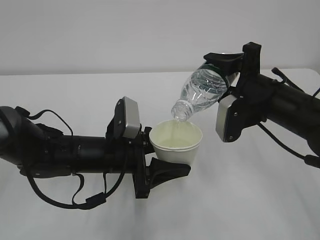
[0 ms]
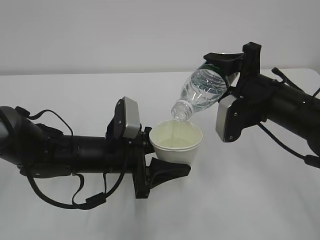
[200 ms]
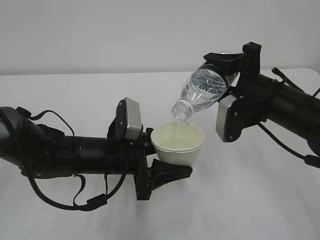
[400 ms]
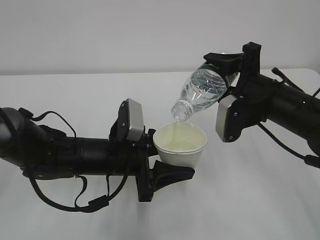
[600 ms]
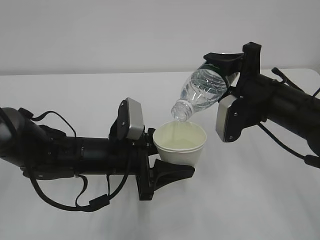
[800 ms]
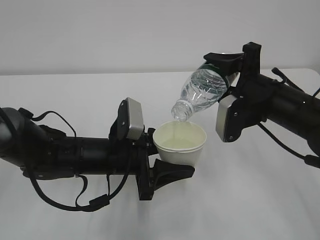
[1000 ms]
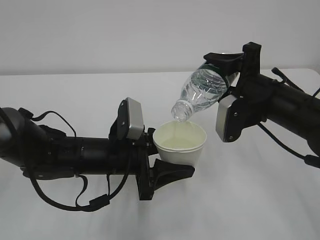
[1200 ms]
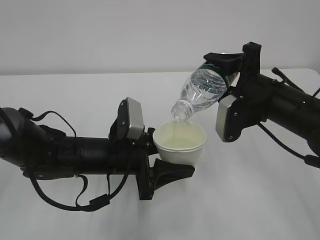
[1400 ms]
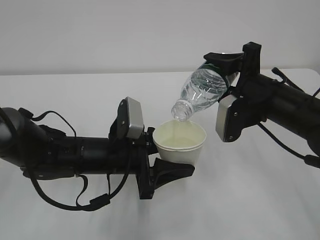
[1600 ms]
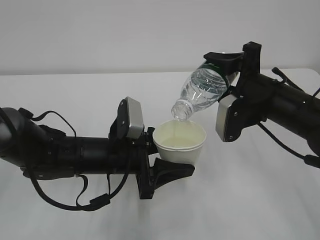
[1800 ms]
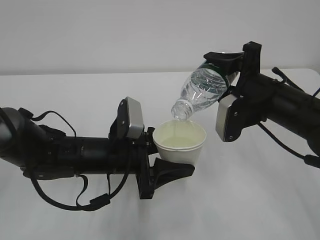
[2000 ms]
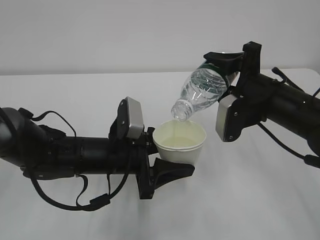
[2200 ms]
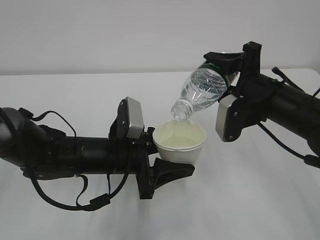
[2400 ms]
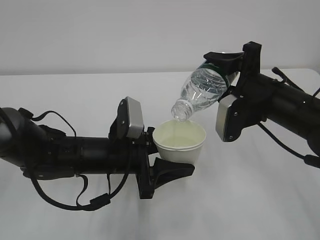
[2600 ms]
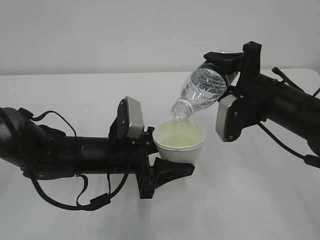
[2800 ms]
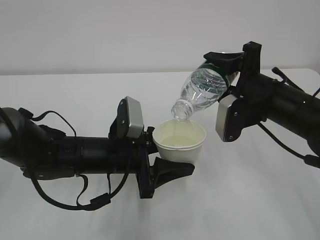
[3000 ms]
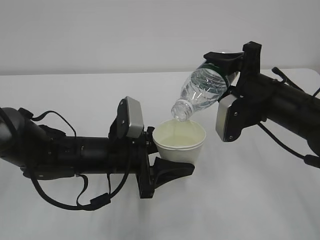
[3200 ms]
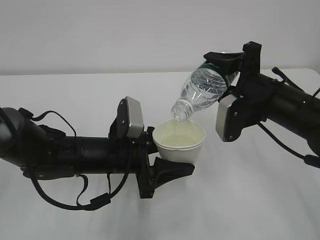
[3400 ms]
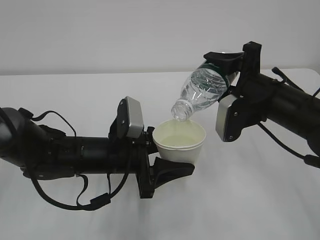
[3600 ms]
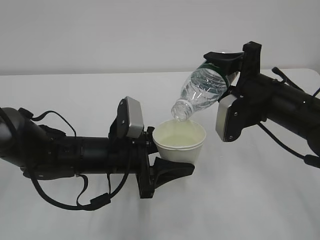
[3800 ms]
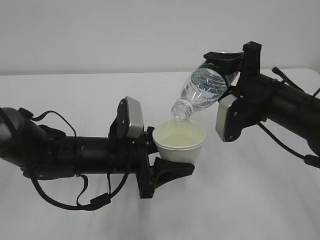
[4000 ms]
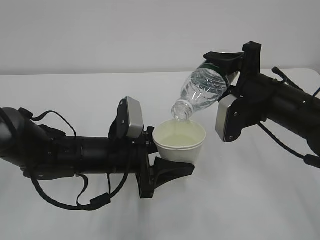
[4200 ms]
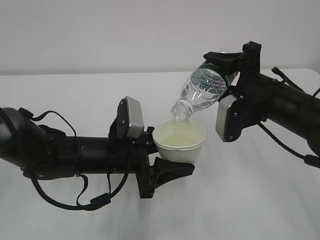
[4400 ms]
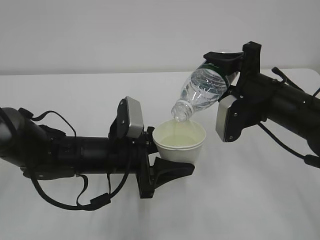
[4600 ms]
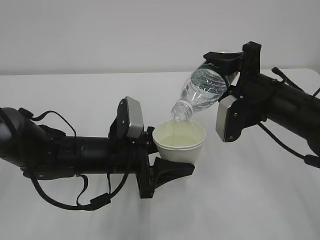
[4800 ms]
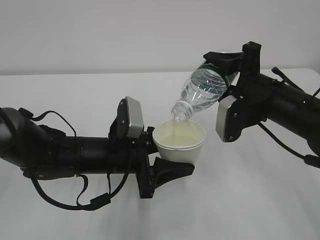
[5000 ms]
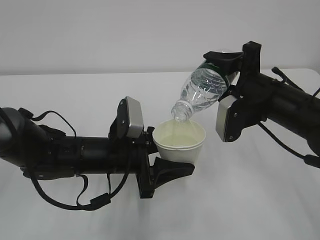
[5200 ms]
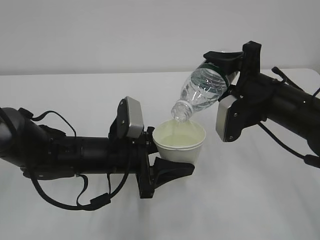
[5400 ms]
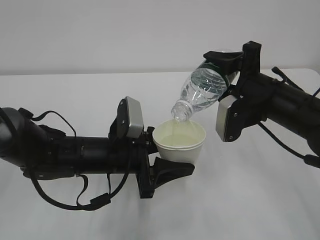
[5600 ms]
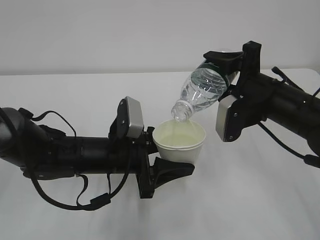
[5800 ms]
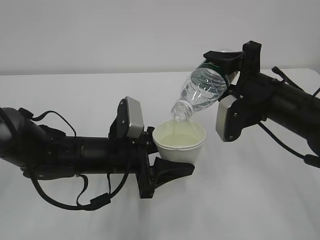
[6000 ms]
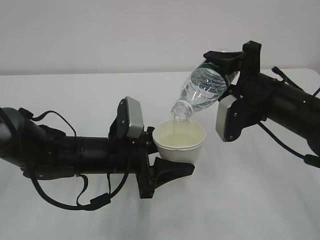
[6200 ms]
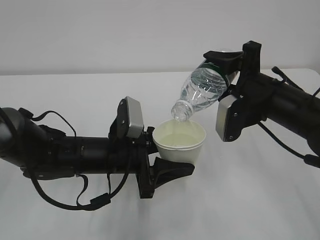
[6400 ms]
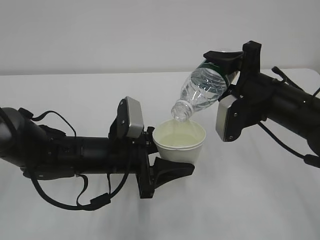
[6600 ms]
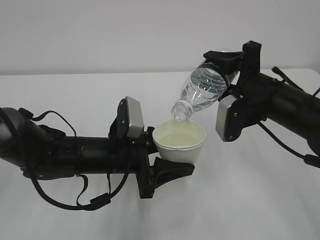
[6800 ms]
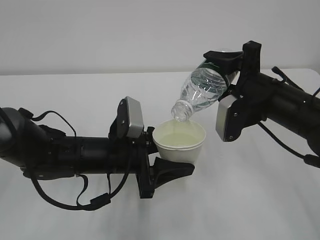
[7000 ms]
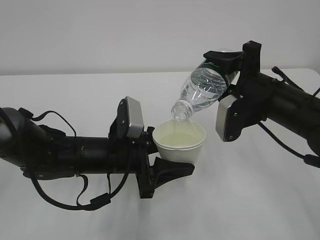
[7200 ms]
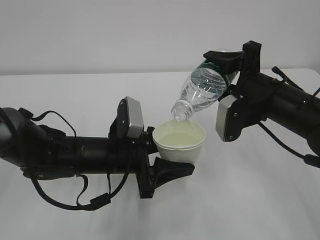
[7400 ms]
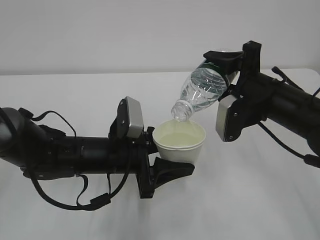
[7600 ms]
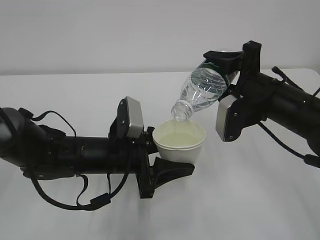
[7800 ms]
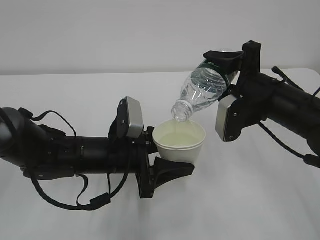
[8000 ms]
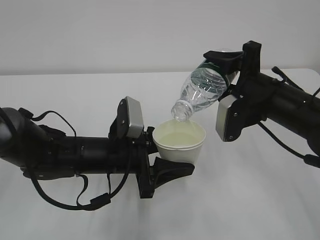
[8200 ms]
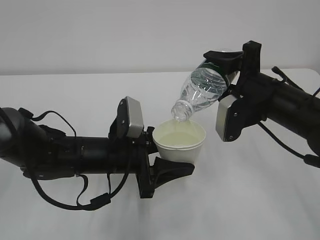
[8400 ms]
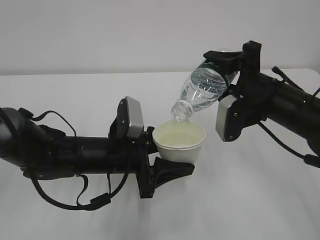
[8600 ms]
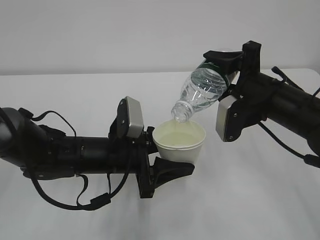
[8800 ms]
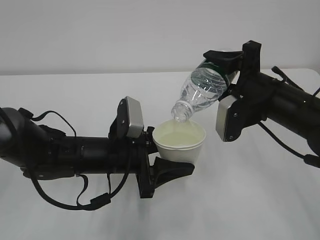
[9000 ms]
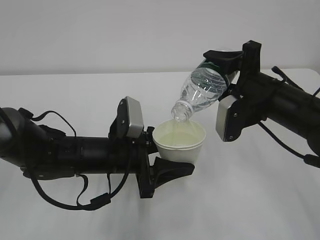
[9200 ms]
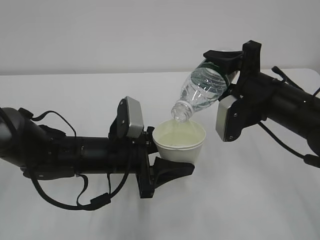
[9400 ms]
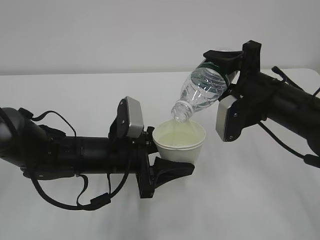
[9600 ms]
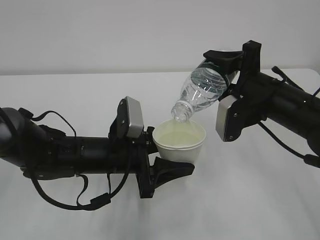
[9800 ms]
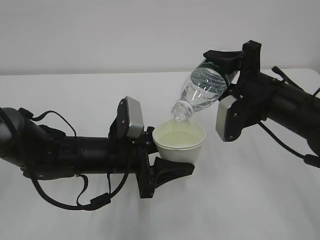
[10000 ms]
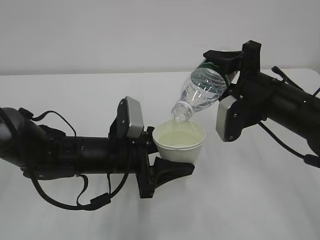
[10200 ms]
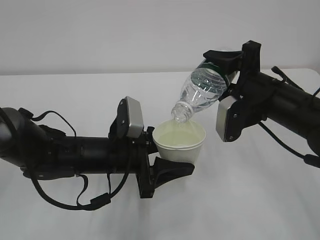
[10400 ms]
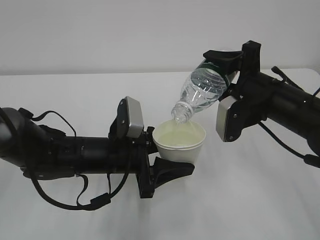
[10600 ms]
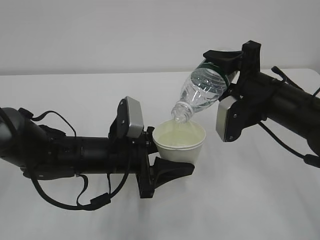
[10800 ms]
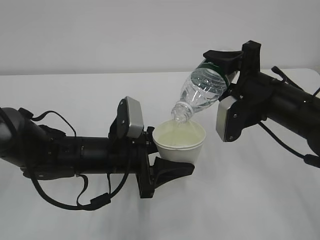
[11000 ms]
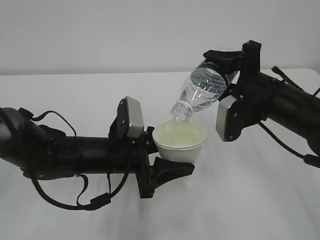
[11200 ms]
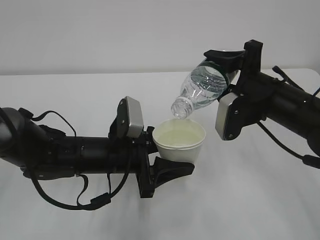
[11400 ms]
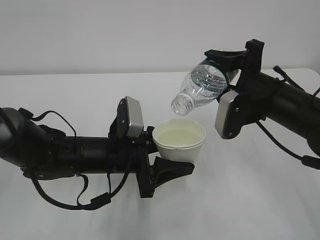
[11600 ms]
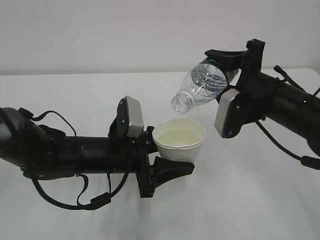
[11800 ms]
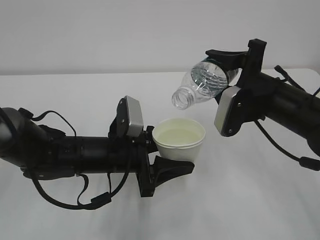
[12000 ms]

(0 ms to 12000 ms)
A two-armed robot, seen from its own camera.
0 ms - 10400 ms: Both grippers stay about where they are.
10400 ms - 12000 ms: The grippers move only a little.

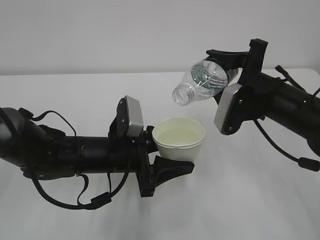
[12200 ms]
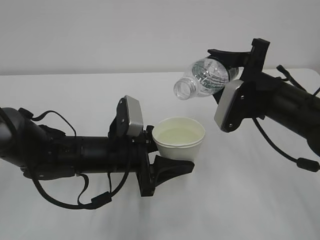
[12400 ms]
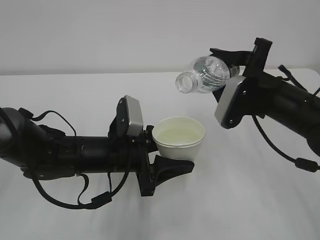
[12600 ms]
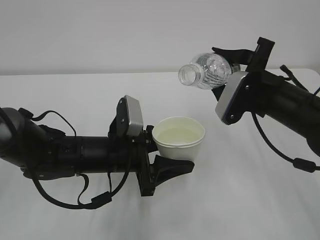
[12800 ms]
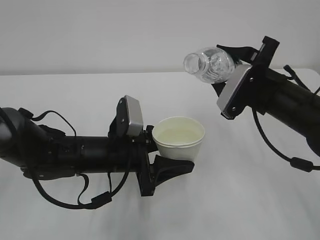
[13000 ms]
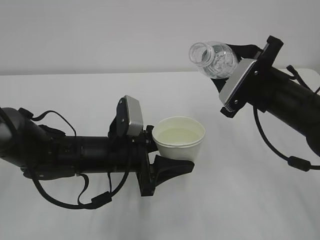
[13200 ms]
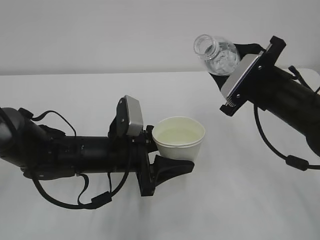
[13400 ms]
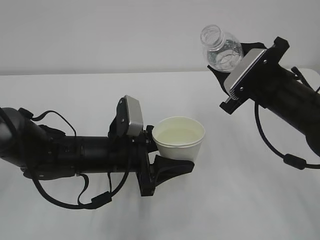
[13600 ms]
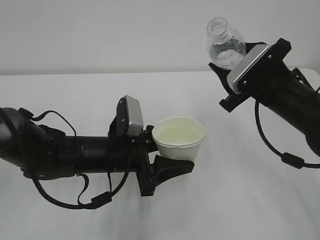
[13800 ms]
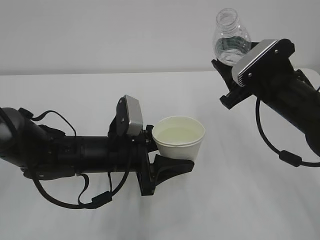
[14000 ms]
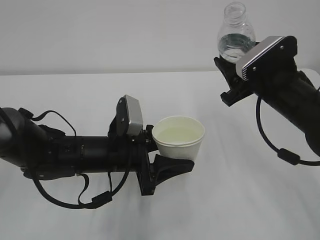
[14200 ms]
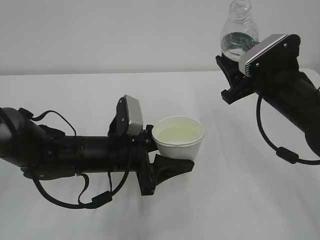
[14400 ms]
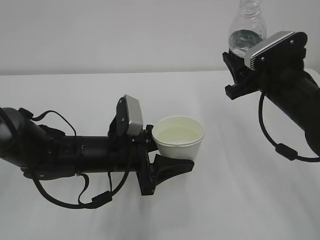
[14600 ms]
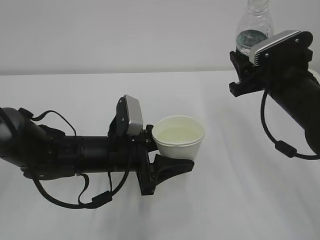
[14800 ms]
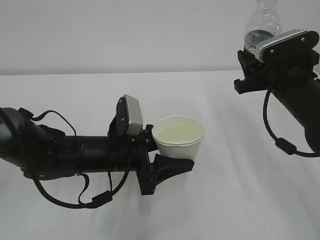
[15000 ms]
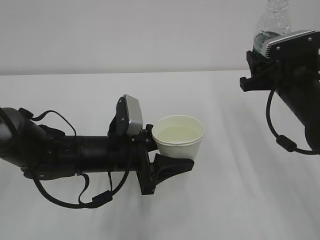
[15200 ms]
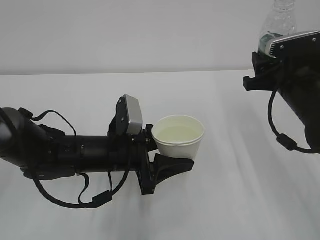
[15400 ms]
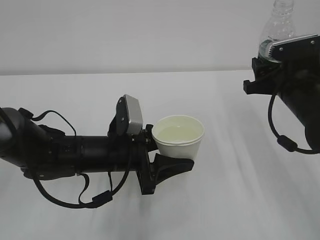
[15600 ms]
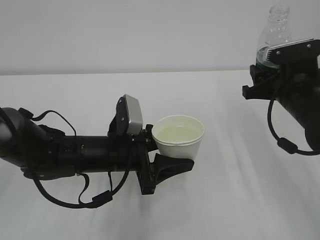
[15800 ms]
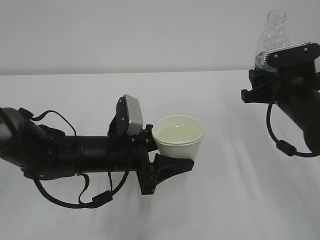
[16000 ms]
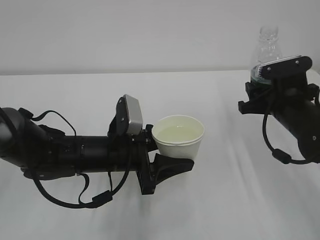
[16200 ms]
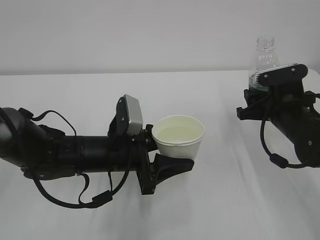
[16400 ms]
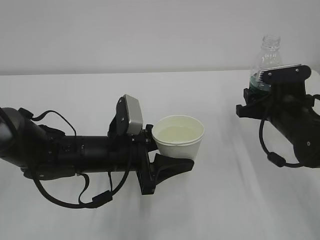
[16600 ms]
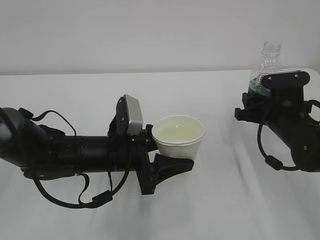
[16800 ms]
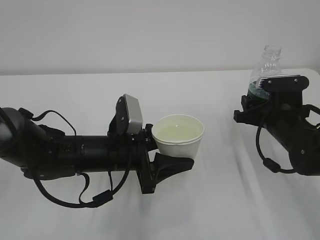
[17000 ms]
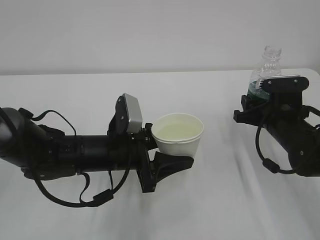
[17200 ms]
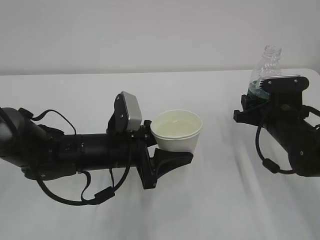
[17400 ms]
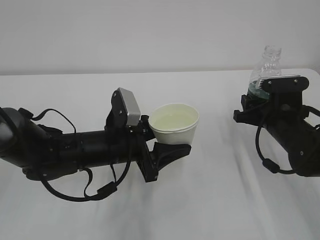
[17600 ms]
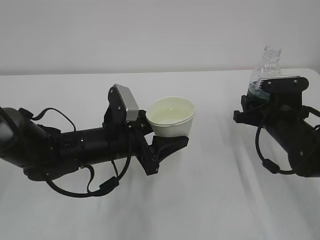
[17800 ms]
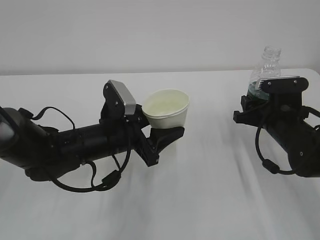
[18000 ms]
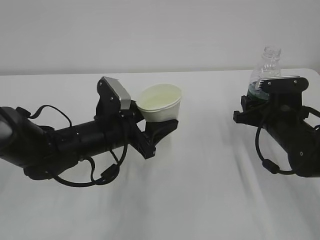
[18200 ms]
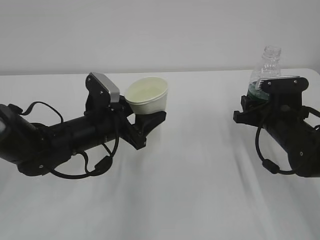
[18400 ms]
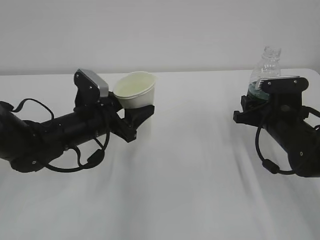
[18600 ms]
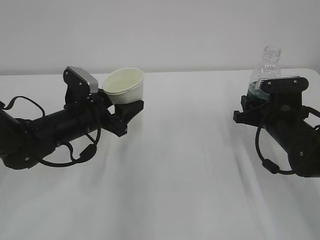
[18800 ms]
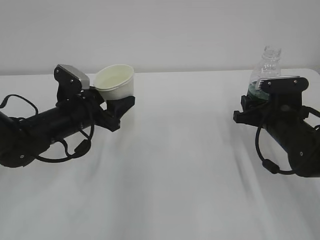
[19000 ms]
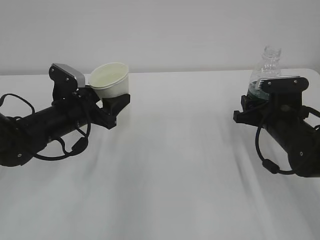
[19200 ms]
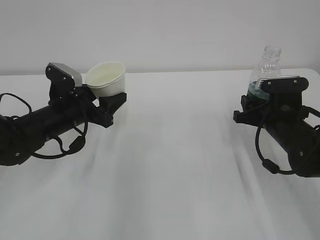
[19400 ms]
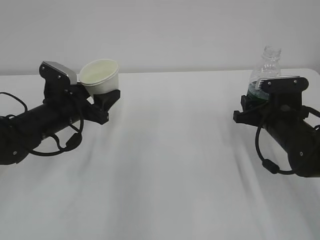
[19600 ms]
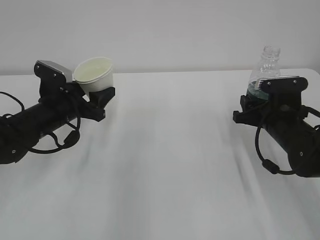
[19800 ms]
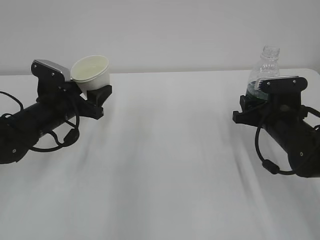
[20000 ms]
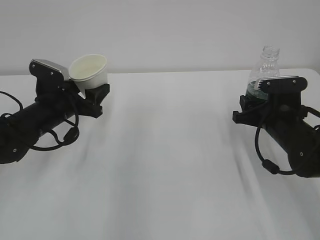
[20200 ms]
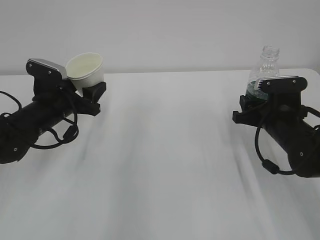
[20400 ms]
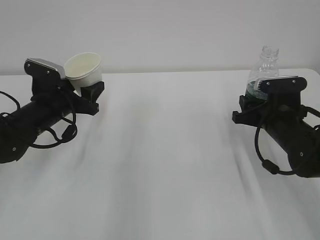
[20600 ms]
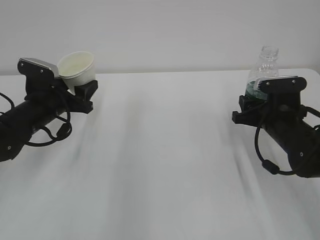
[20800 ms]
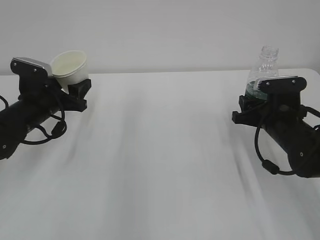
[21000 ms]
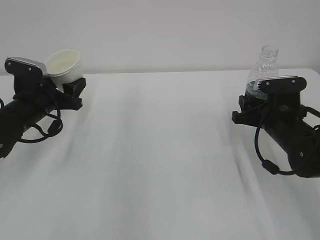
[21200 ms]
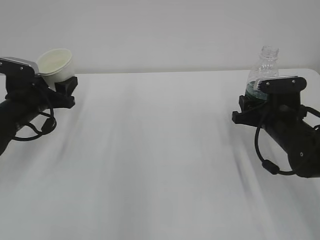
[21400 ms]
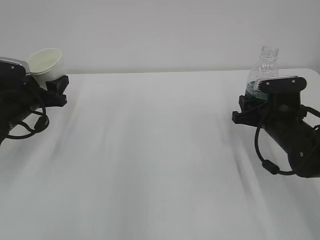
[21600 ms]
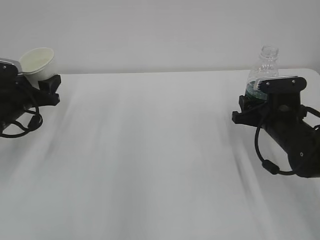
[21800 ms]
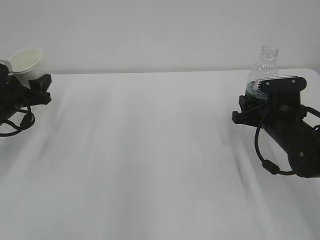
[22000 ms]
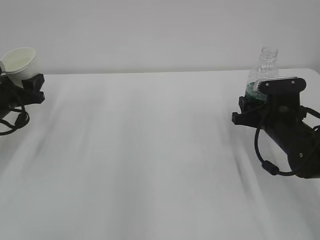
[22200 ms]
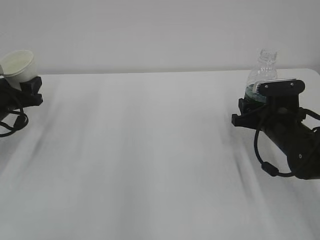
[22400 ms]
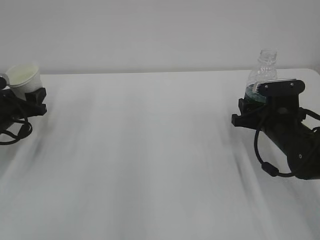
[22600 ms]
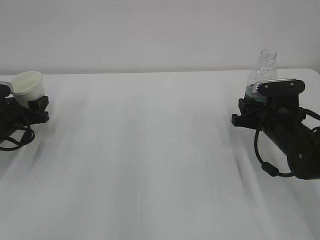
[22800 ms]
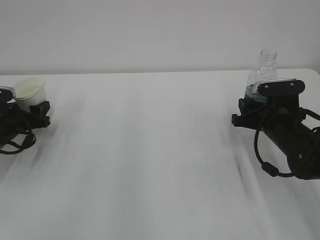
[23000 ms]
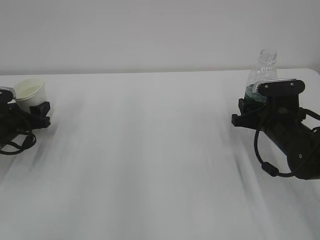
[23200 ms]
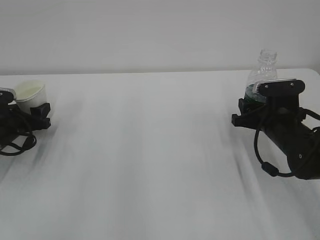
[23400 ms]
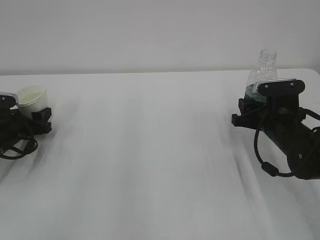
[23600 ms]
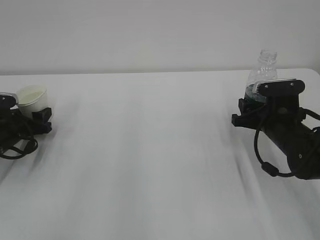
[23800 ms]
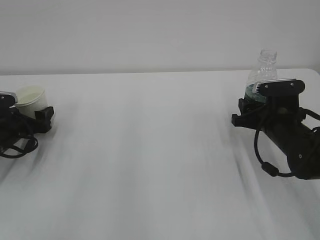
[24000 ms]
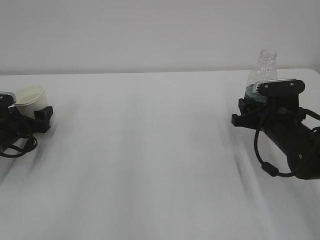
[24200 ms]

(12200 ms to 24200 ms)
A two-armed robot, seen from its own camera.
15200 ms - 16600 ms: The right gripper is displaced downward by about 5 cm.
18200 ms - 19800 ms: The left gripper moves to the left and forward, some 10 cm.
19800 ms - 21200 ms: The left gripper is displaced to the left by about 5 cm.
21200 ms - 22600 ms: The left gripper heads to the left, covering about 10 cm.
22600 ms - 24200 ms: The left gripper opens.
